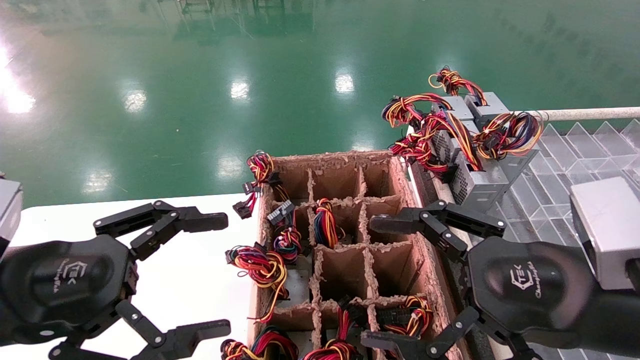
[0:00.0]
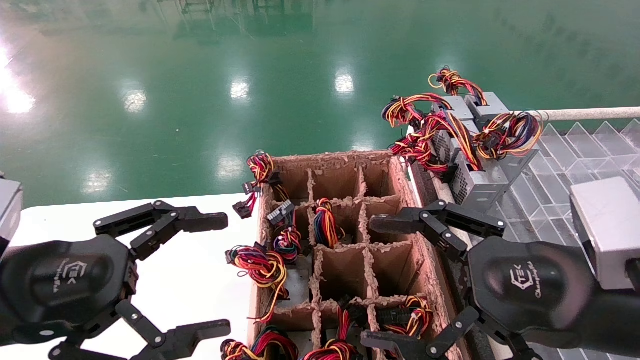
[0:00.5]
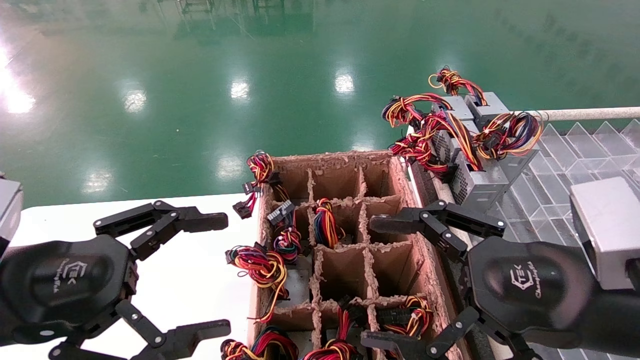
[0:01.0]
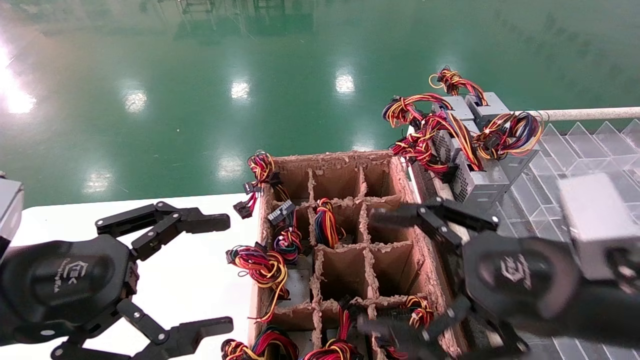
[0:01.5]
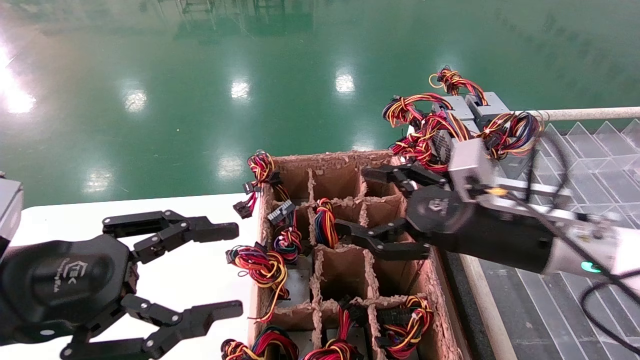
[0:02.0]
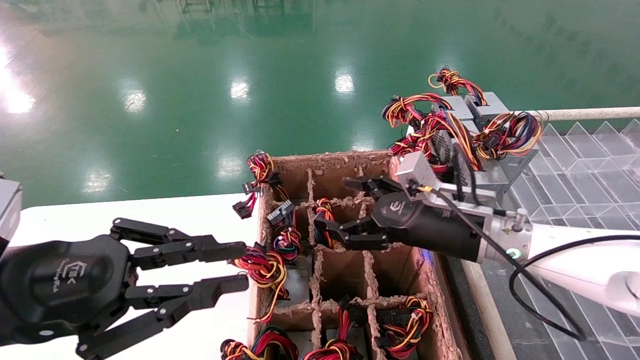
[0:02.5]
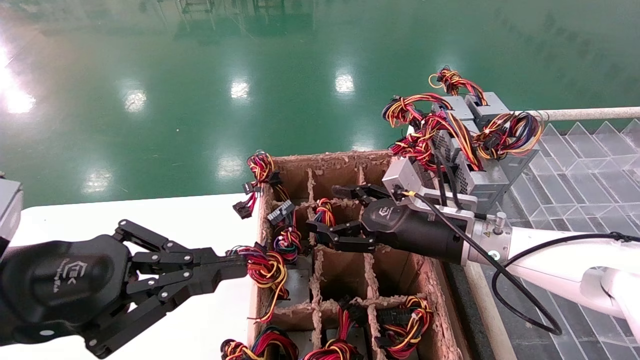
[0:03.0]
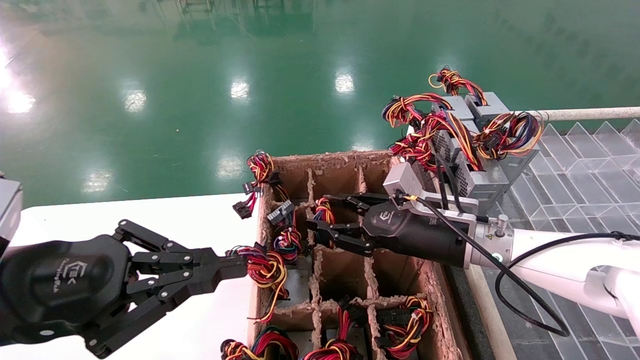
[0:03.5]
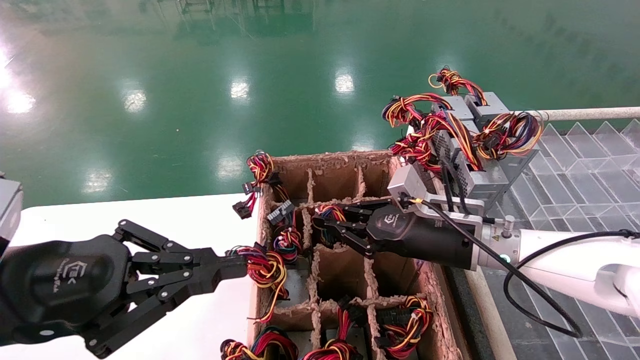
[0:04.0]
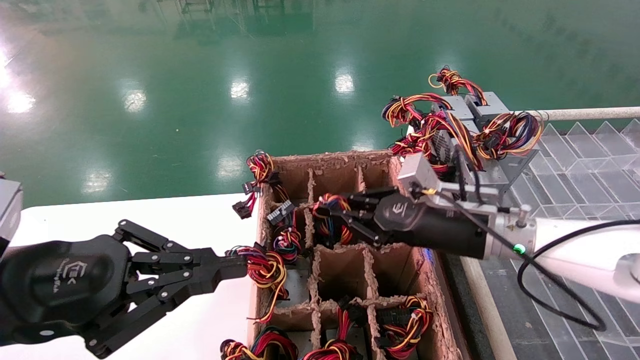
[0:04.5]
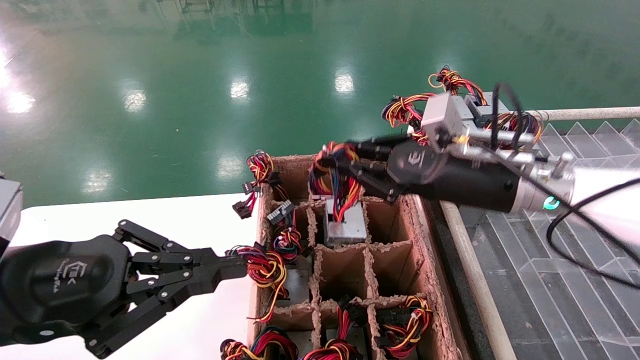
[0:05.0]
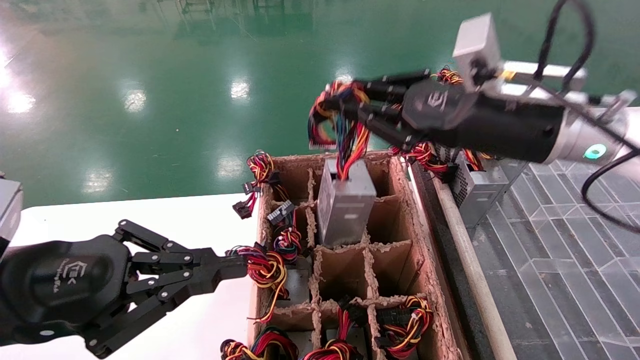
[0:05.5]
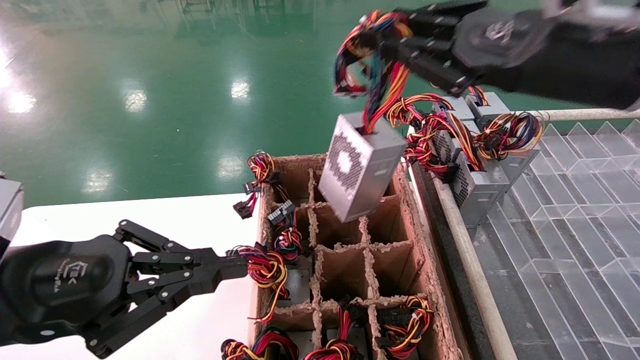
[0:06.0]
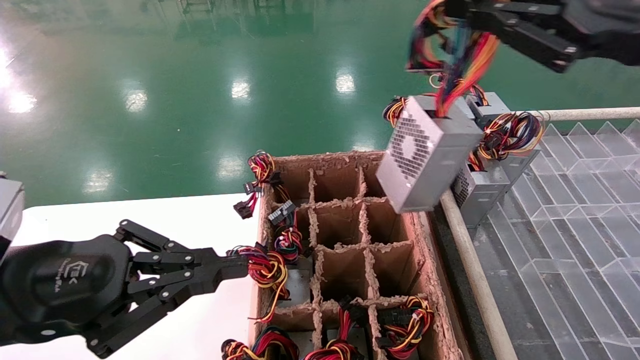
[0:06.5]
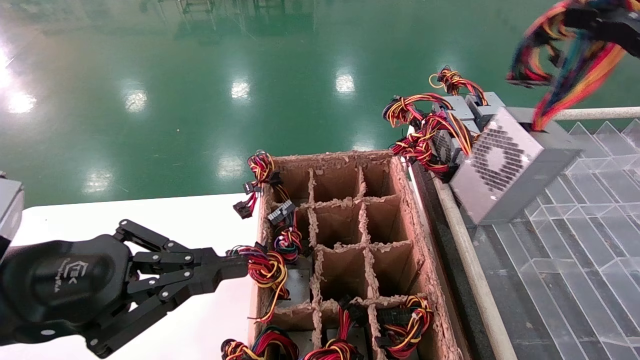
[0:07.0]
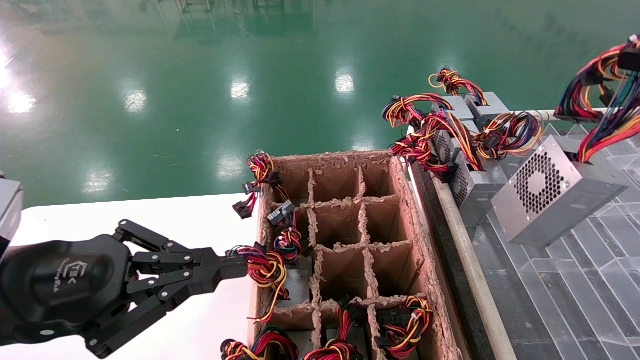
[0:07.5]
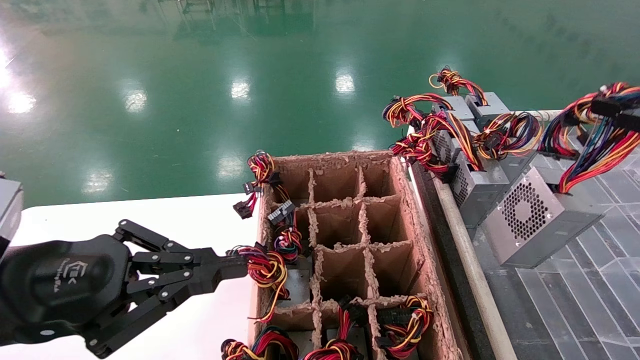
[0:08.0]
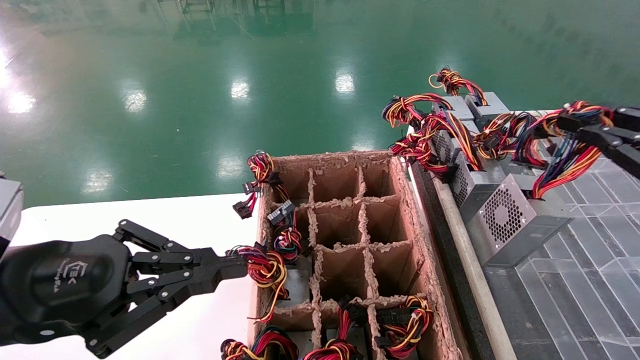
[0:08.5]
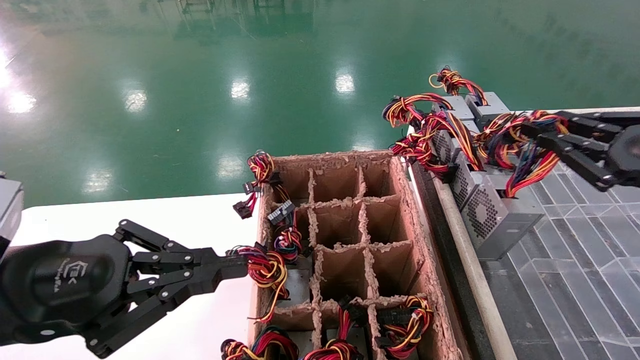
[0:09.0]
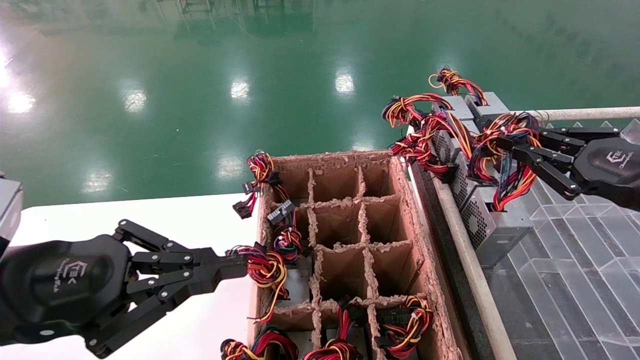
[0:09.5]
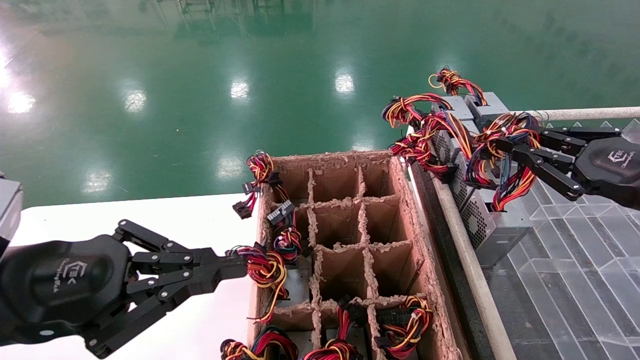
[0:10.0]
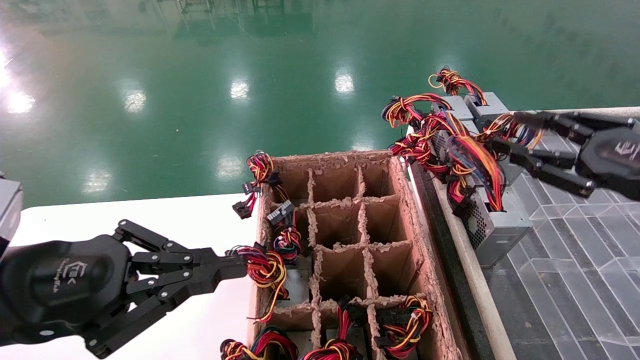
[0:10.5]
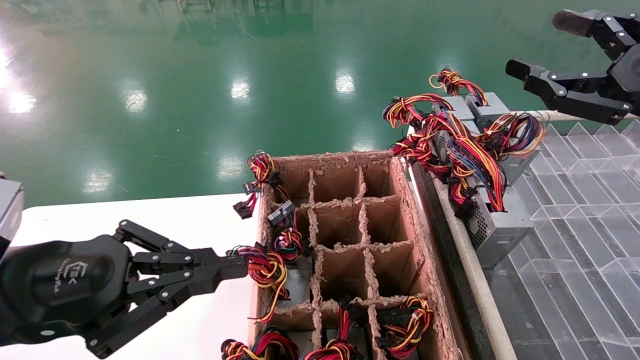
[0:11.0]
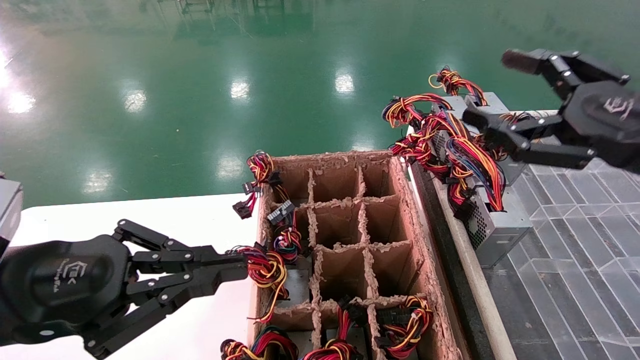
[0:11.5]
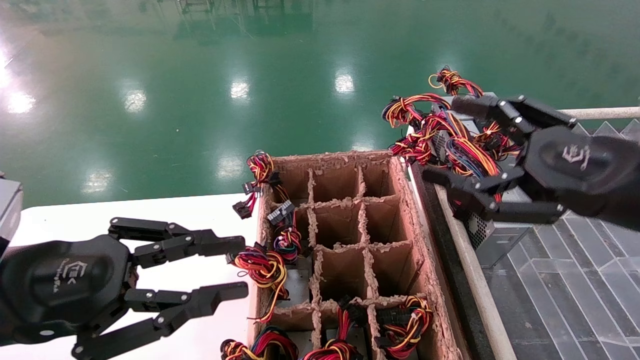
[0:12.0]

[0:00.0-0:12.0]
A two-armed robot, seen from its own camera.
Step, 0:01.5 to 0:04.0: Grab the main unit power supply from the containment box.
Step, 0:04.5 to 0:10.5: Place the main unit power supply in the designated area.
0:00.0 to 0:02.0: The right gripper heads forward, covering roughly 15 cm.
0:02.0 to 0:04.0: The right gripper shifts some 10 cm forward, and closes up. The left gripper closes its fingers.
0:04.0 to 0:06.0: The right gripper is displaced upward and backward by about 25 cm.
0:06.0 to 0:08.0: The right gripper goes roughly 20 cm to the right, backward and downward.
0:08.0 to 0:10.0: The right gripper shifts some 10 cm forward and downward.
0:10.0 to 0:12.0: The right gripper heads to the left, covering roughly 10 cm, and opens its fingers.

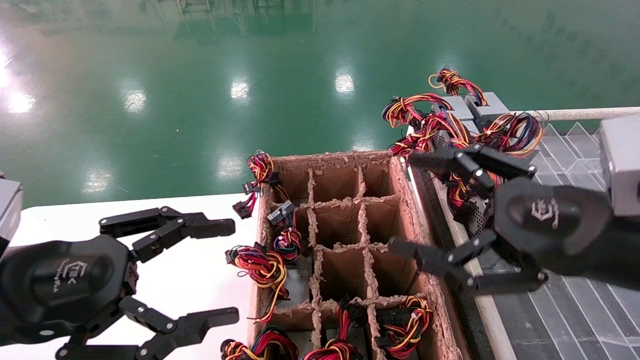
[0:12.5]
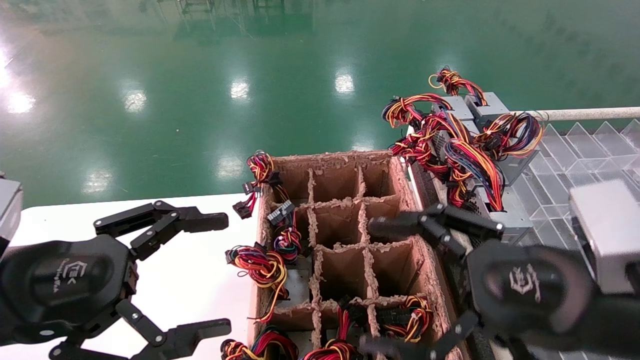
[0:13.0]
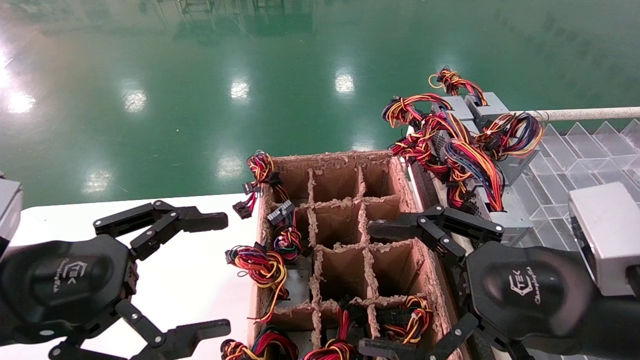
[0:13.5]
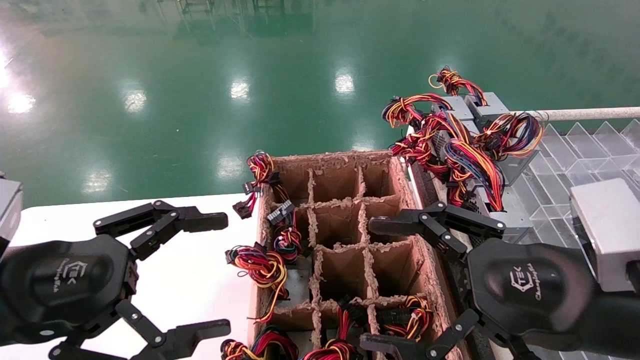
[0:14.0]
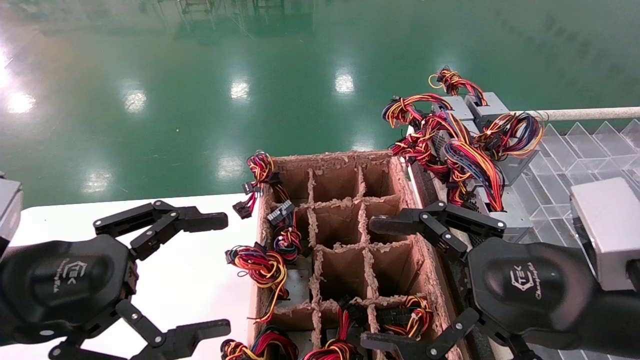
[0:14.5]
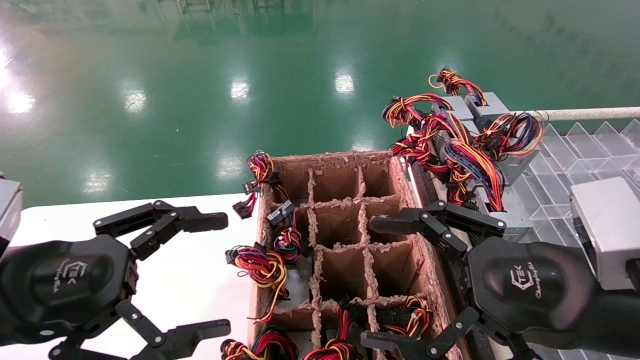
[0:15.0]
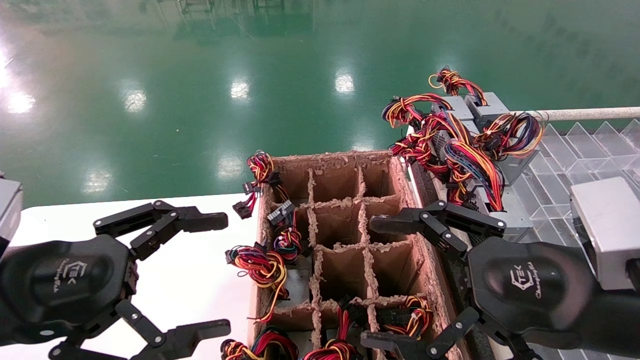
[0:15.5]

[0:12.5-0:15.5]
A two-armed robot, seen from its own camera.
0:12.5 to 0:14.0: The left gripper opens up.
0:14.0 to 0:15.5: Both grippers stay about where they are.

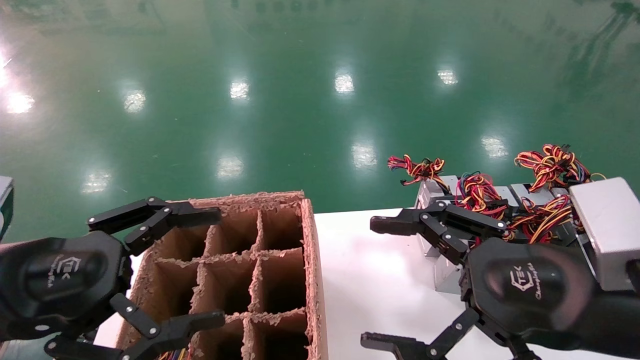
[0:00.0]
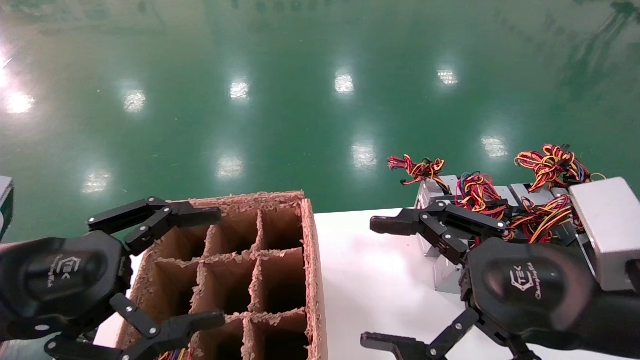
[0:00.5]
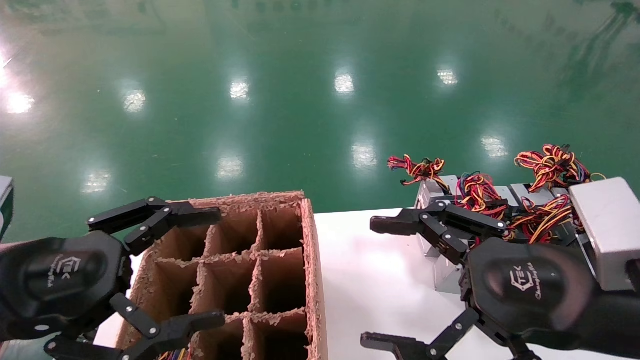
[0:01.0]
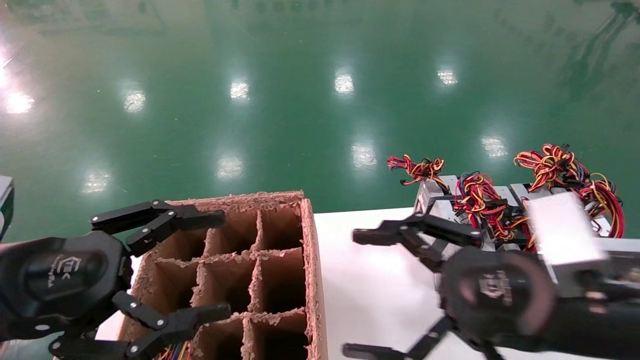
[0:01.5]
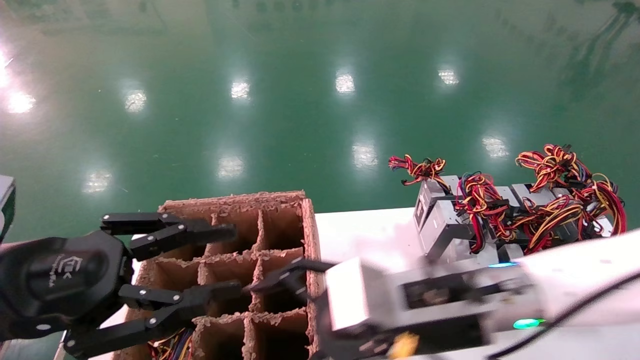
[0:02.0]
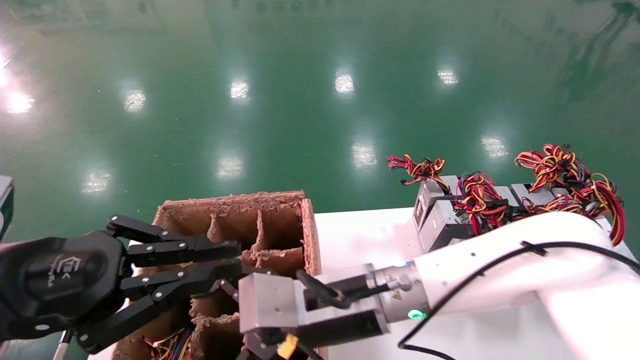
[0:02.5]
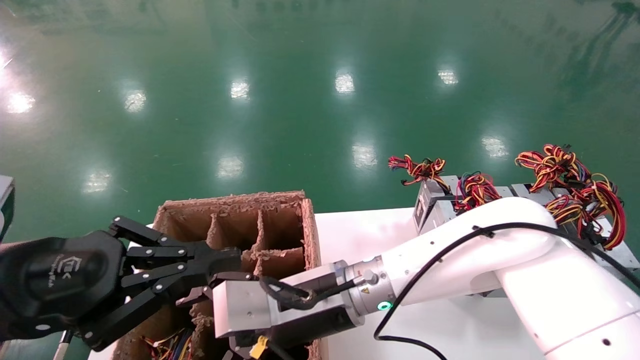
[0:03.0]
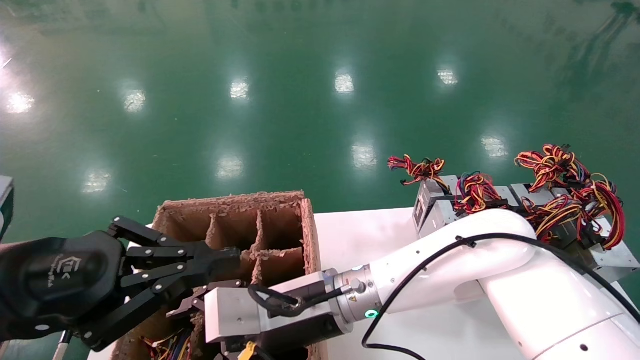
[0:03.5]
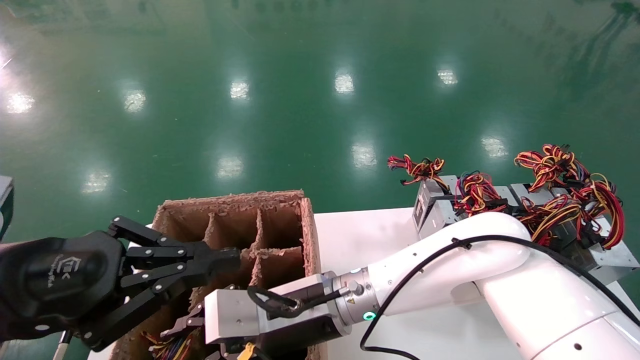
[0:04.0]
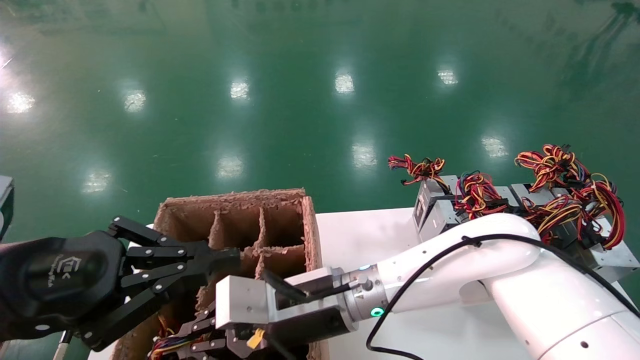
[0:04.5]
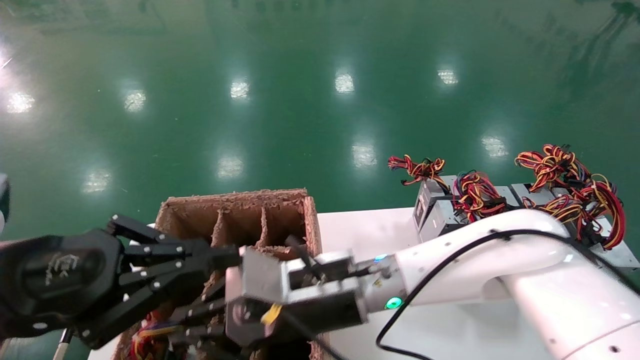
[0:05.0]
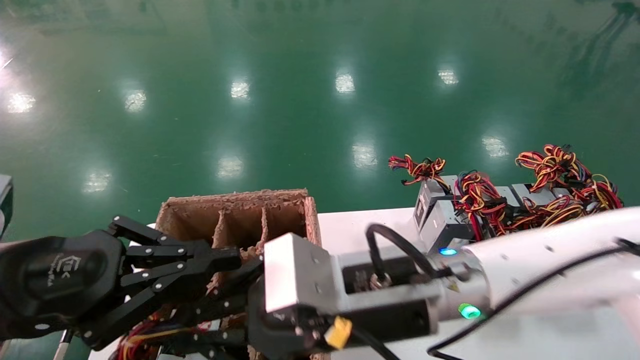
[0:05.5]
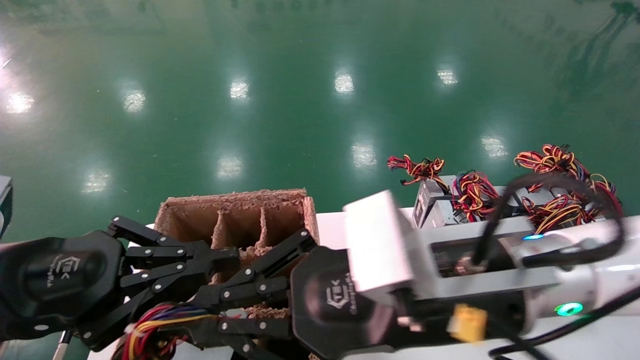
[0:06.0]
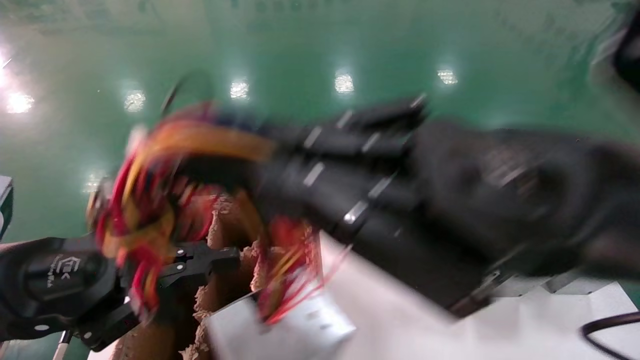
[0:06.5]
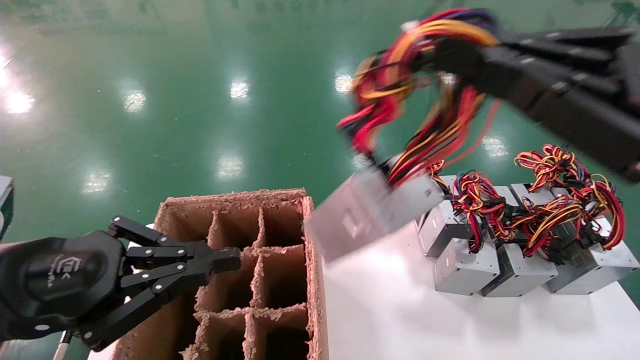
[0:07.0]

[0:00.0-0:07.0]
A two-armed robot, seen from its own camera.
Step, 0:02.0 to 0:04.0: Grab the main unit power supply from the containment box.
0:00.0 to 0:02.0: The left gripper closes up. The right gripper is displaced to the left and forward by some 15 cm.
0:02.0 to 0:03.5: The right gripper heads to the left, forward and downward, covering approximately 15 cm. The left gripper closes up.
0:03.5 to 0:05.0: The right gripper closes its fingers.
0:05.0 to 0:07.0: The right gripper shifts approximately 35 cm to the right, upward and backward.
